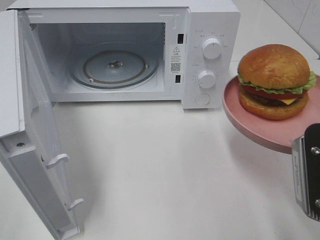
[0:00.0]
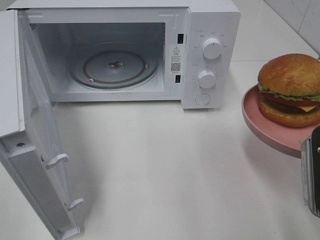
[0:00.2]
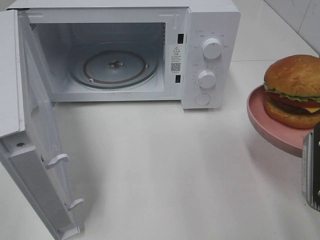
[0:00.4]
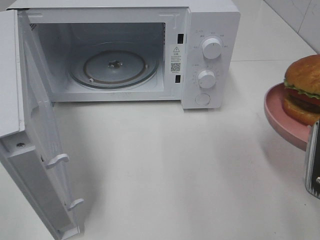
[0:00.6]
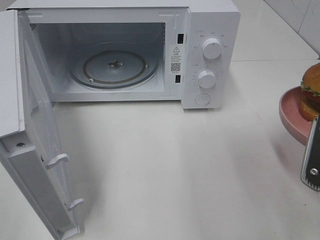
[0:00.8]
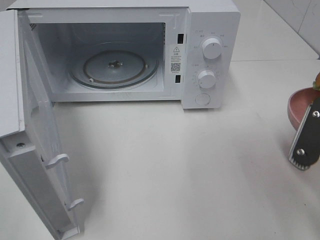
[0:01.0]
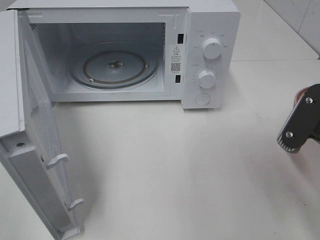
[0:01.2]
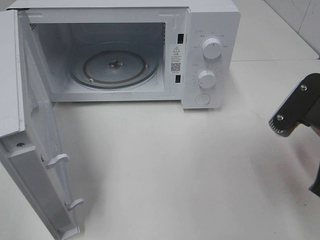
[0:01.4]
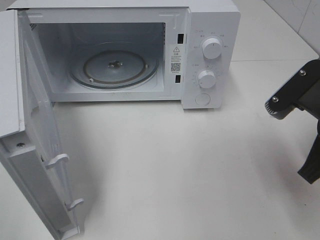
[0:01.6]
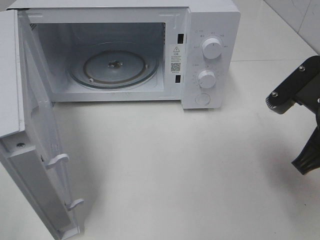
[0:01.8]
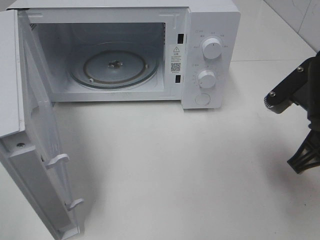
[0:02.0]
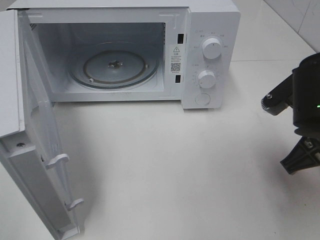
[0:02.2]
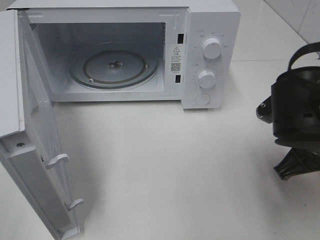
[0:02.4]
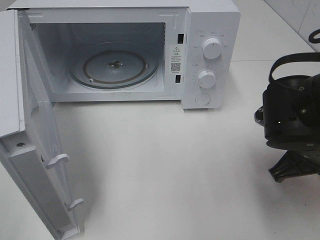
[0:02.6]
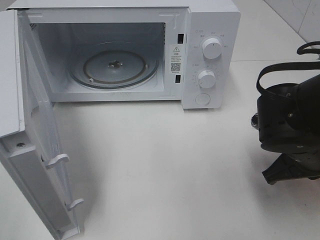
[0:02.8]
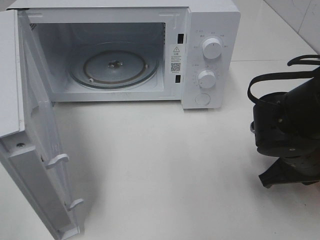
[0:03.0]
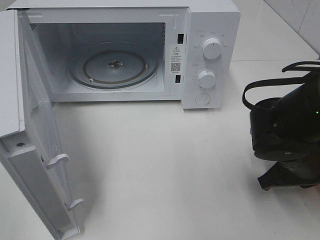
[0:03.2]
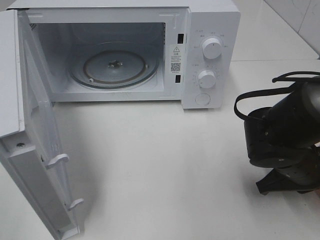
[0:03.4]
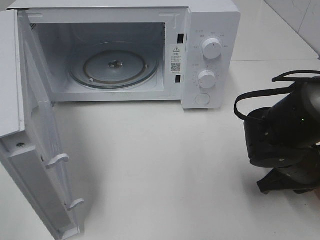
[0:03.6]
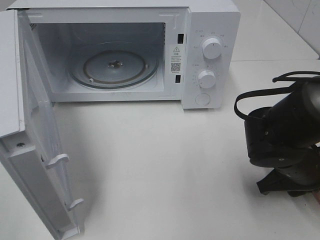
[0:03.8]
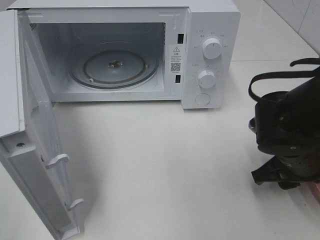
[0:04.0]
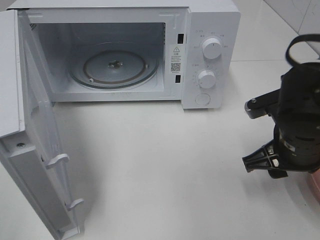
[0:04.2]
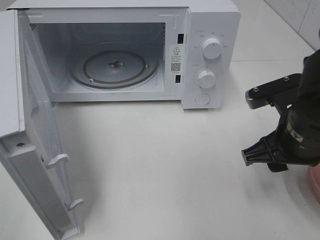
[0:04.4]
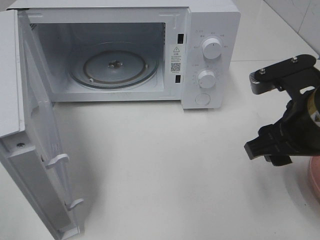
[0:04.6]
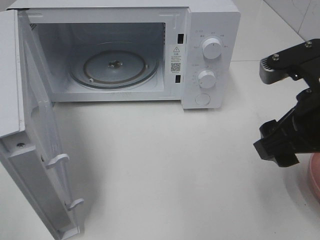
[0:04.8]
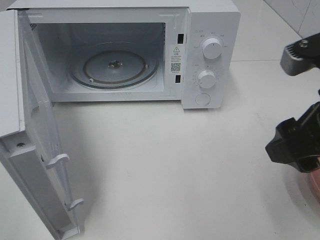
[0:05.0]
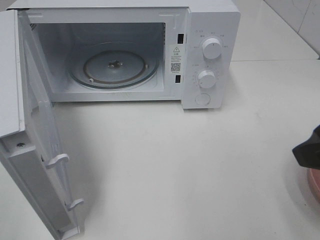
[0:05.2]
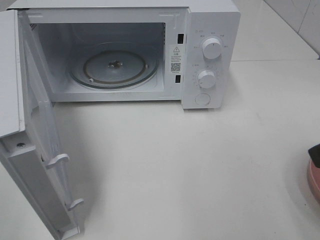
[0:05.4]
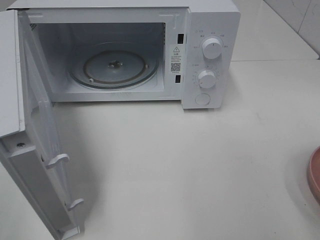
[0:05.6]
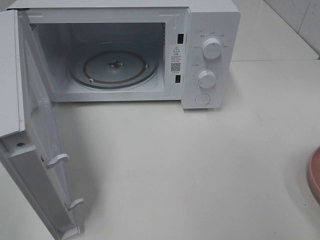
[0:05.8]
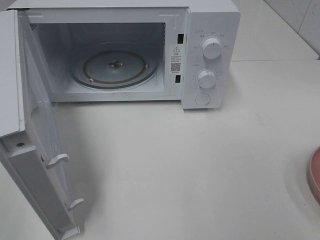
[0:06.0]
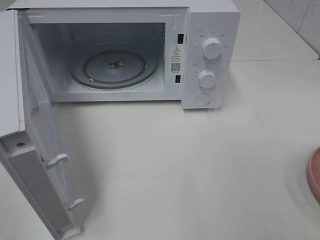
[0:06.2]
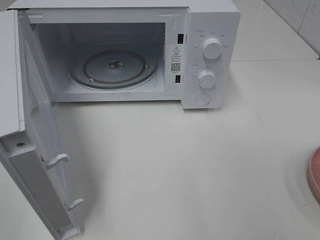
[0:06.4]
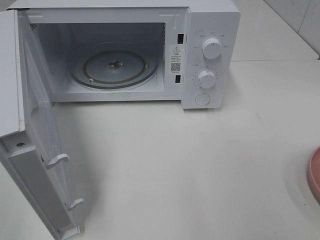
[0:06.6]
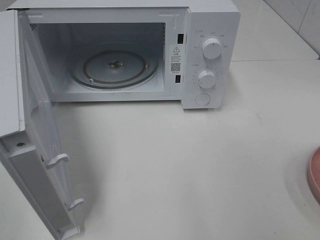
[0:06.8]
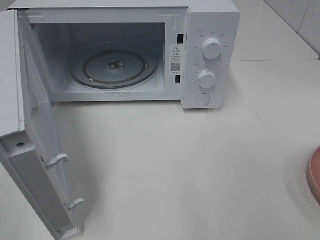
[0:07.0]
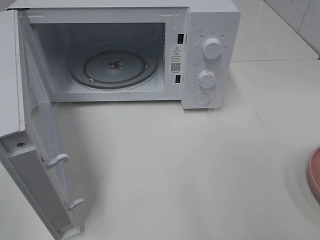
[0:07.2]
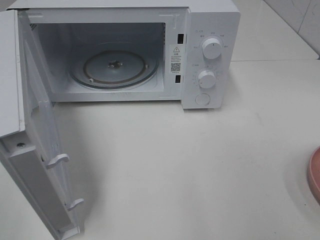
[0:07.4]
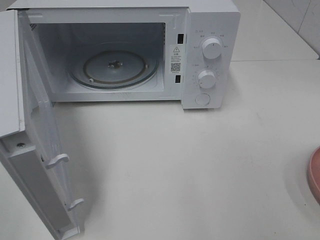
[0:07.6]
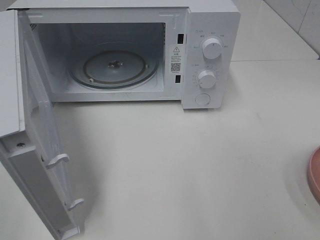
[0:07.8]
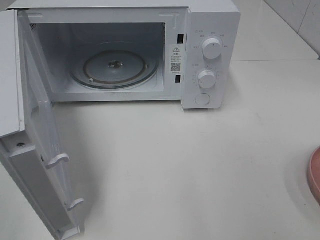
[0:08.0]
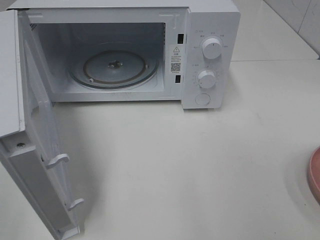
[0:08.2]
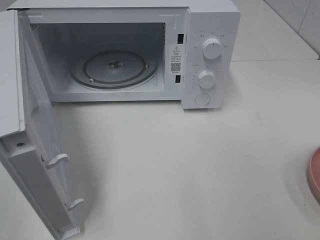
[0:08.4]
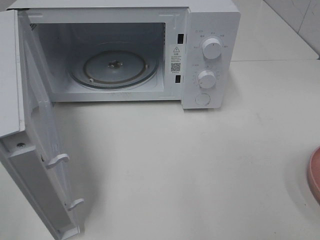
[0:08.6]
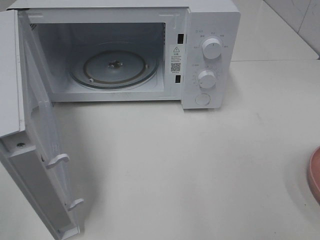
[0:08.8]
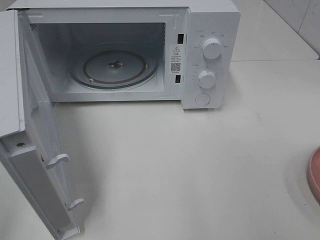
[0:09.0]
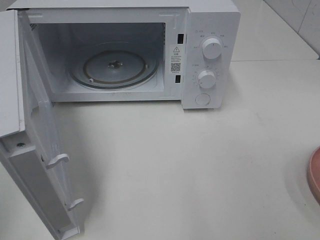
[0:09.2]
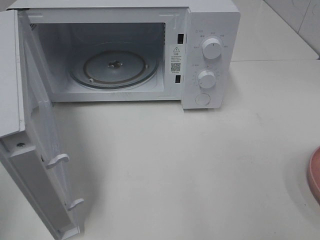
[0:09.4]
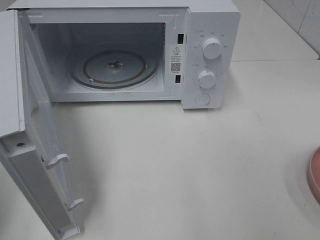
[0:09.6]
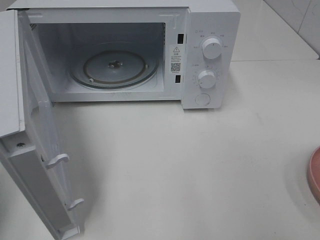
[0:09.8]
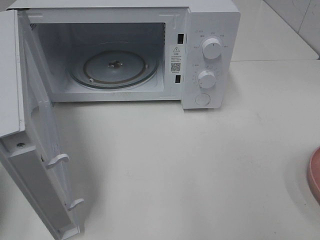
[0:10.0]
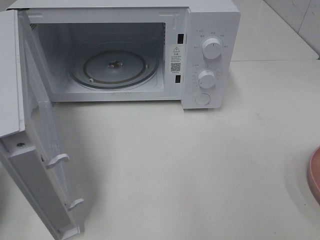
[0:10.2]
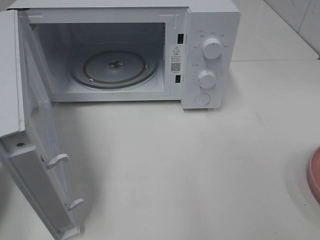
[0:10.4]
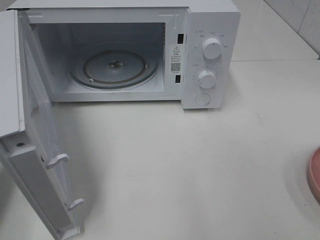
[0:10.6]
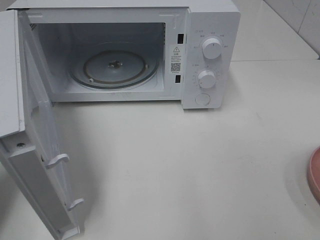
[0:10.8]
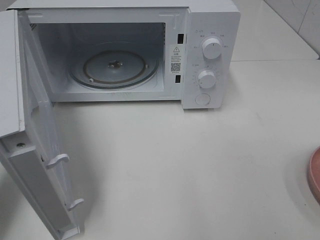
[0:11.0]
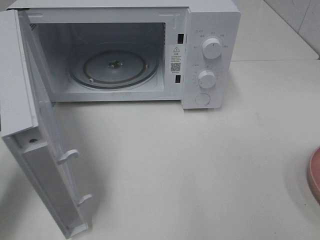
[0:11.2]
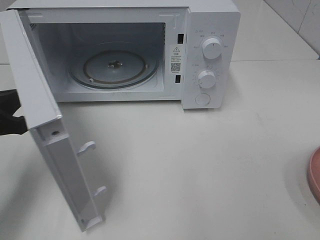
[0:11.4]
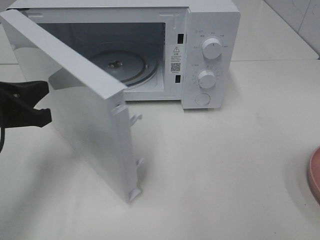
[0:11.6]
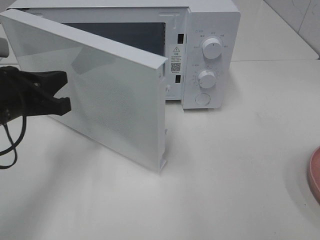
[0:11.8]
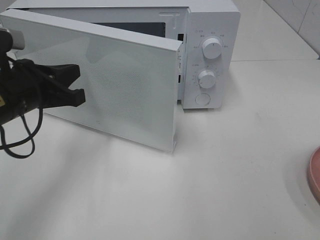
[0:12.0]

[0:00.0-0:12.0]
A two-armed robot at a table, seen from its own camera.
Task of the whole recording: Heat the burger.
Step, 0:00.0 to 0:03.8: Right hand: place the plate on the table.
0:00.0 to 0:01.6: The right gripper heads forward, covering some 5 cm.
0:01.6 to 0:03.0: The right gripper shifts about 10 cm downward.
0:03.0 to 0:04.4: The right gripper shifts approximately 5 cm upward, and opens up.
0:04.4 to 0:06.0: The right gripper goes approximately 20 cm backward, upward and to the right.
0:09.0 to 0:10.4: The left gripper goes about 20 cm forward and downward, and closes its fingers.
0:10.4 to 0:12.0: The left gripper goes roughly 15 cm to the right and forward.

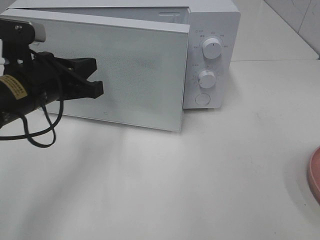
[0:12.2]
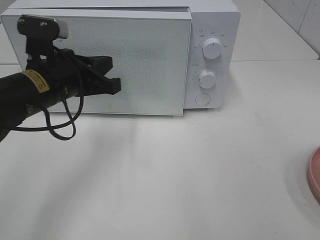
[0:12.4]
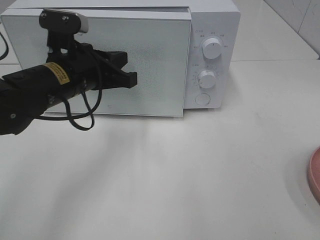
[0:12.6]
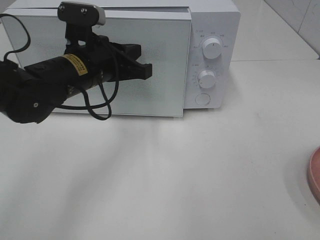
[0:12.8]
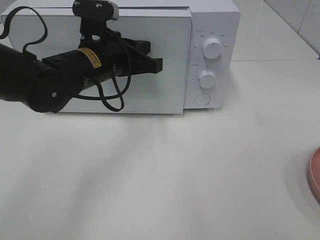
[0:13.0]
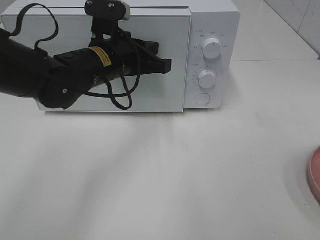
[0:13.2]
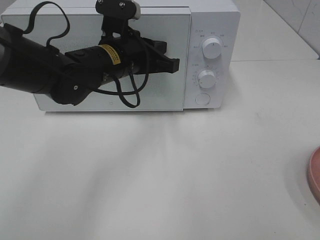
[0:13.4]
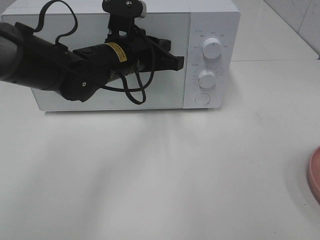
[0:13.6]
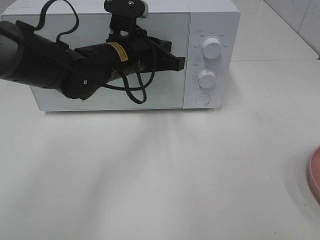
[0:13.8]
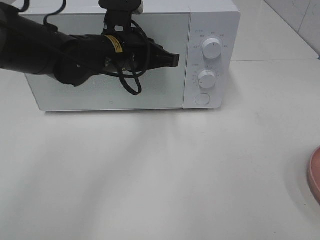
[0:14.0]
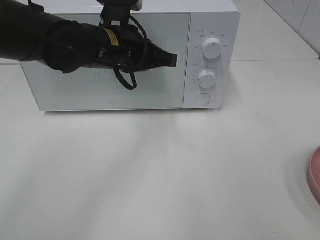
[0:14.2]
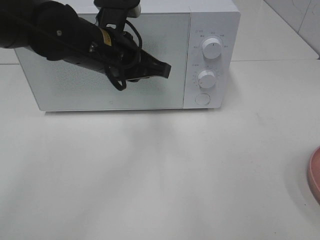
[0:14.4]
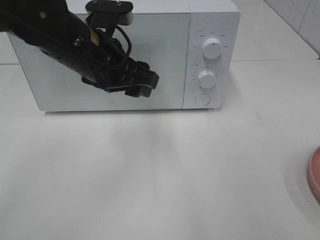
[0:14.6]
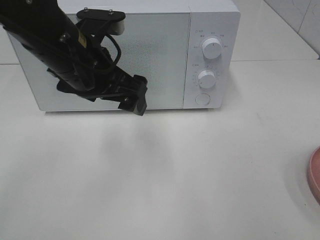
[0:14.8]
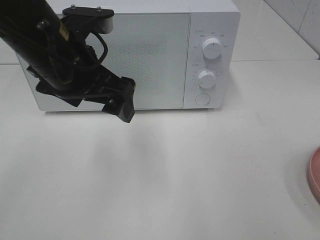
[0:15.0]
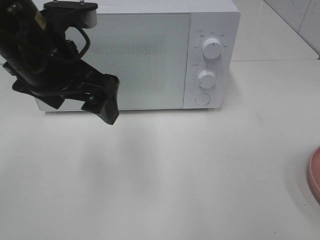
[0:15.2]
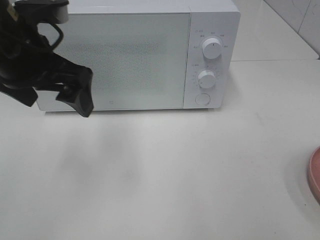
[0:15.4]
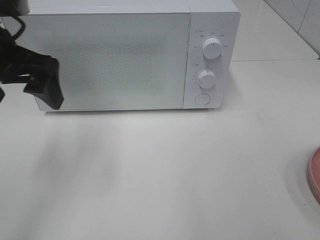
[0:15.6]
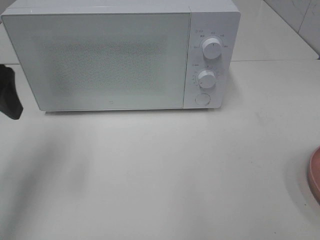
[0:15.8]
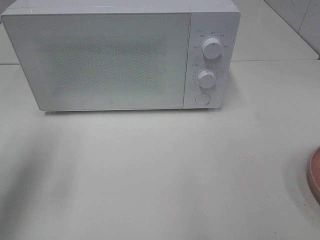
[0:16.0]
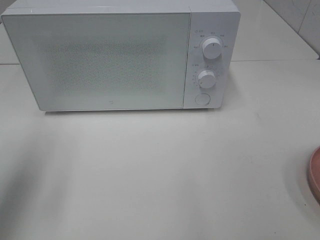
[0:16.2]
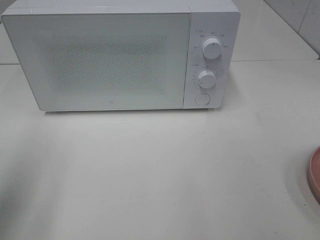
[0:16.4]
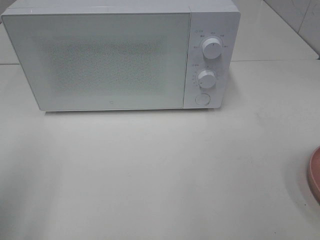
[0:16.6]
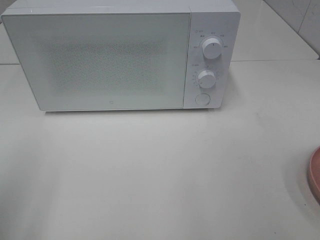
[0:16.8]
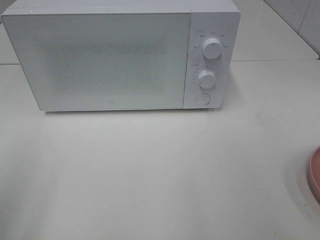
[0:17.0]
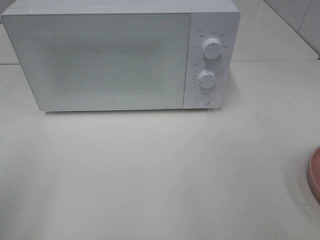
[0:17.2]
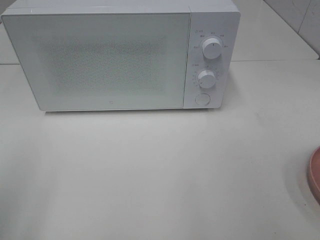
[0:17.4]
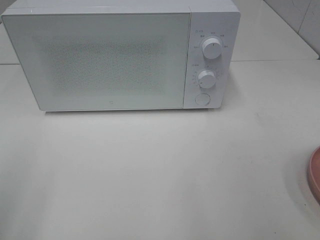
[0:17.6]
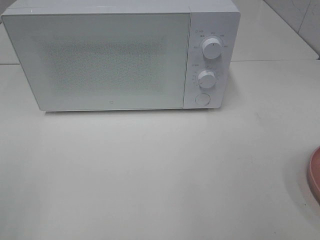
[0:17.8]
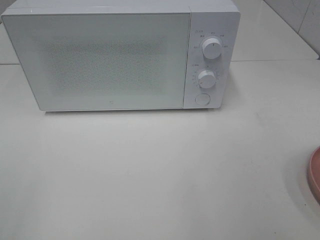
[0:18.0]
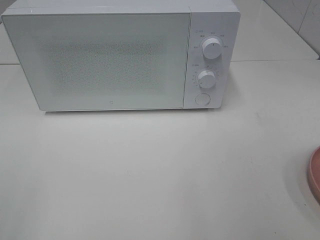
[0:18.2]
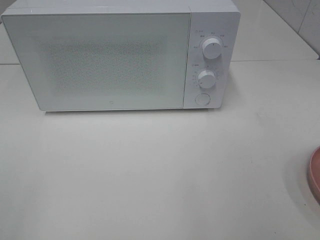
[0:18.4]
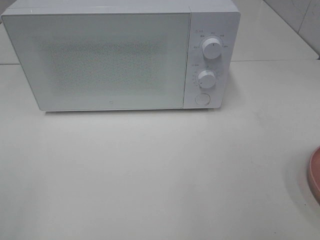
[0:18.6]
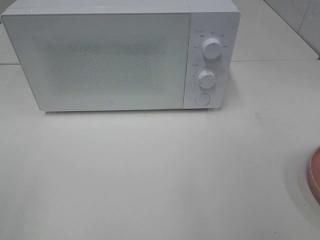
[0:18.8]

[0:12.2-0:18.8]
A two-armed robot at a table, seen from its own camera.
Task of the whole recording: Heat the burger.
0:12.2 to 0:13.8: The left gripper travels to the right and forward by approximately 15 cm.
0:13.8 to 0:15.4: The left gripper travels to the left, upward and backward by roughly 15 cm, and opens.
0:15.4 to 0:17.2: The left gripper goes some 25 cm backward and to the left.

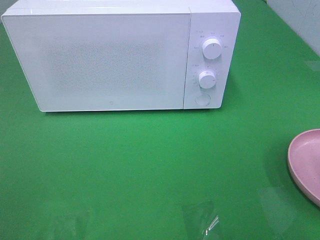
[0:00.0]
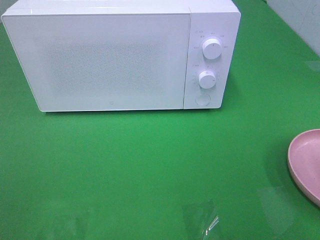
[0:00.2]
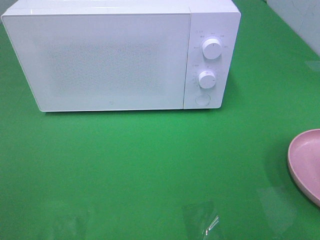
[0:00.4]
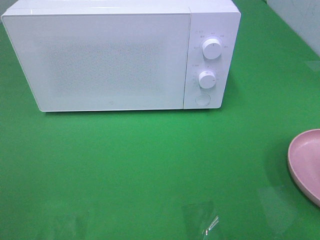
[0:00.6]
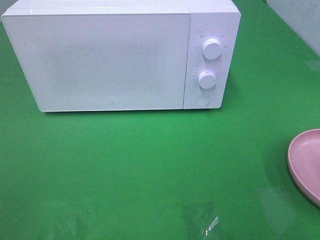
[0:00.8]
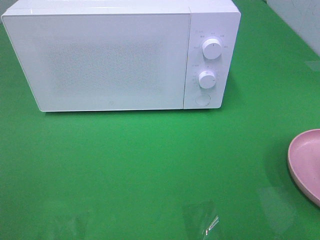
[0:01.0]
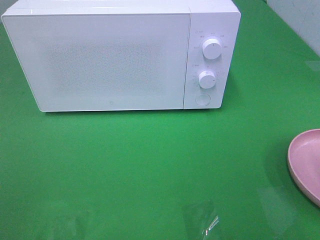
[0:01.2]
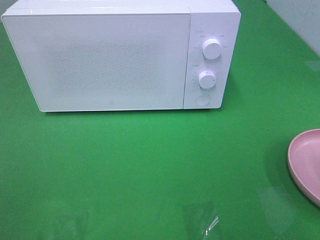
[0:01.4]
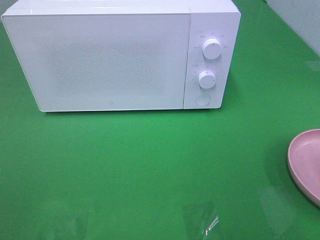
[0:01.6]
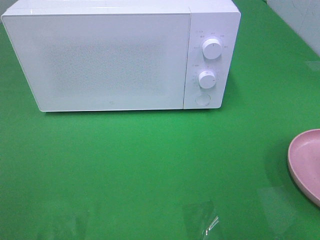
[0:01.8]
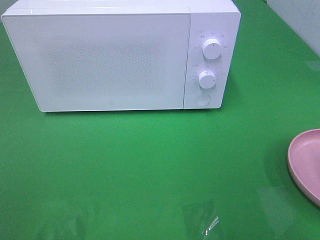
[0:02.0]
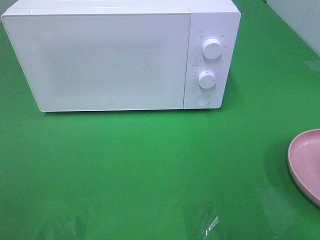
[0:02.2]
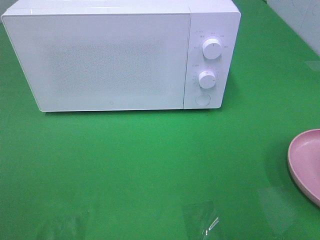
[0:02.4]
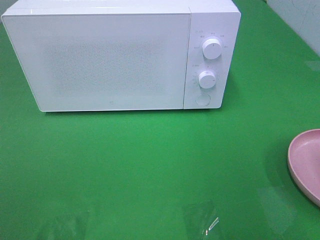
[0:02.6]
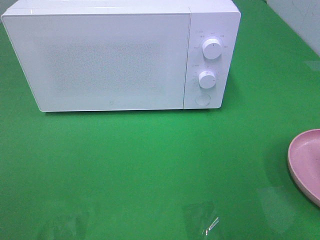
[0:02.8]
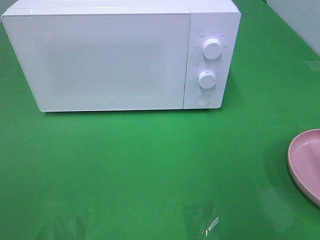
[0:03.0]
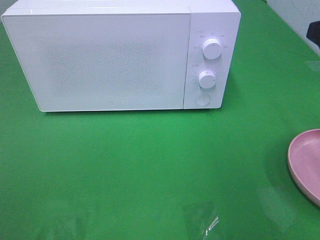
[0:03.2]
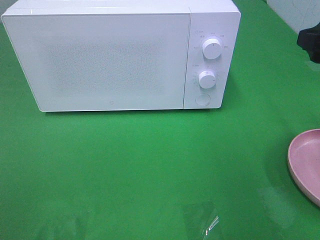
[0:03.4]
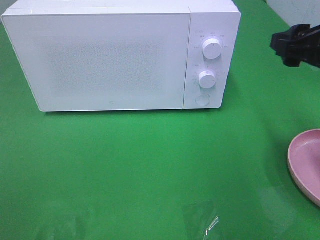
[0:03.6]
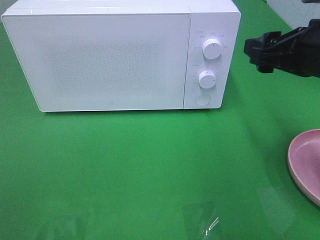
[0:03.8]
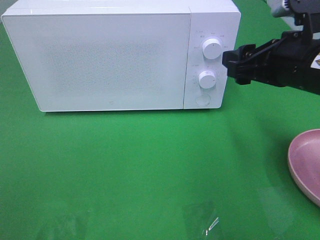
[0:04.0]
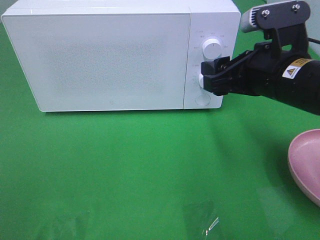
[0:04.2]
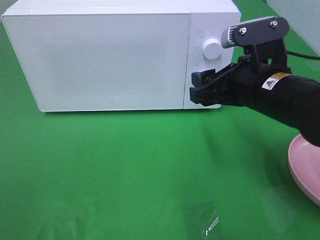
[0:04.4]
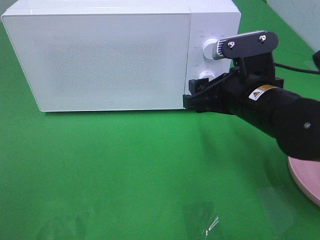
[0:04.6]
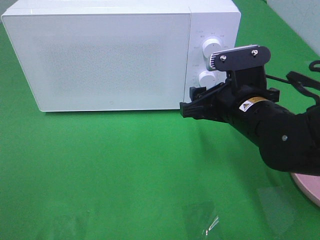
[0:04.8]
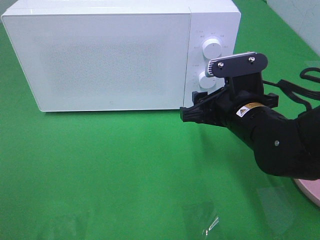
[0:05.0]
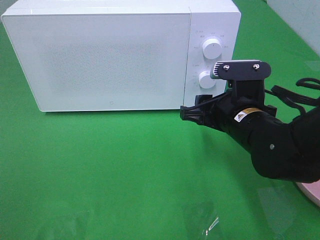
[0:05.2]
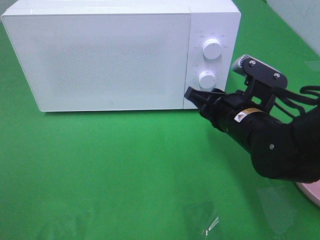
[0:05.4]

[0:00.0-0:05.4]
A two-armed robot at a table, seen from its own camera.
Task of the whole recording: Heat the burger.
0:00.0 to 0:01.4: Both grippers stay put.
0:02.8 to 0:04.0: The right gripper is displaced downward, to the left and forward by about 15 cm.
0:04.0 to 0:05.4: The right gripper moves downward and to the left, approximately 10 cm, and closes its fingers.
